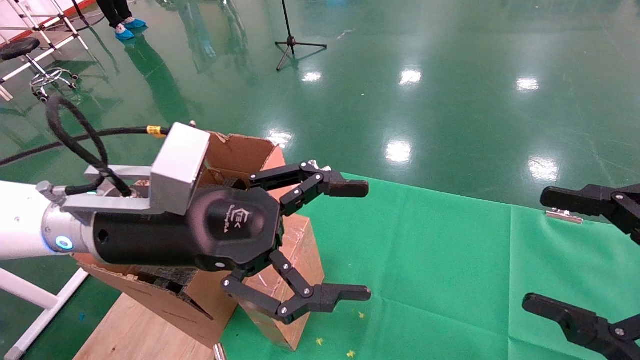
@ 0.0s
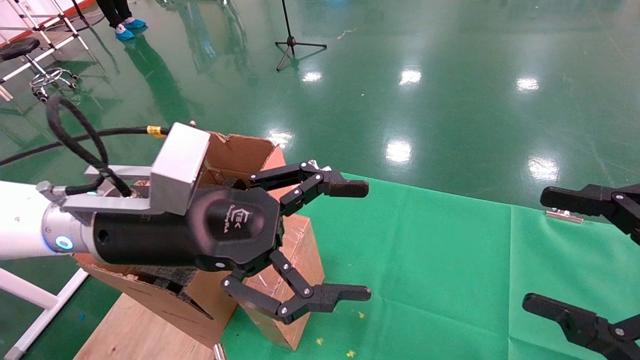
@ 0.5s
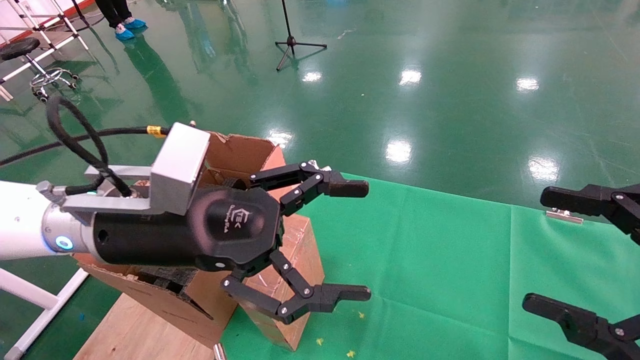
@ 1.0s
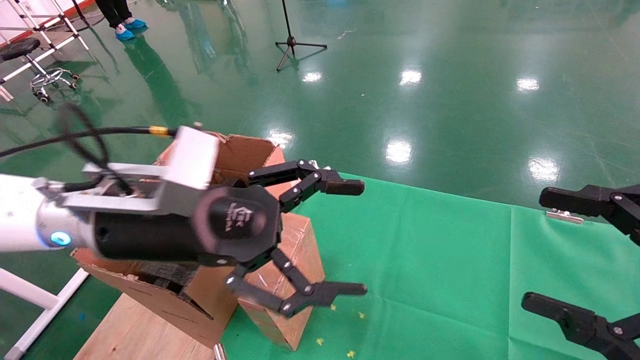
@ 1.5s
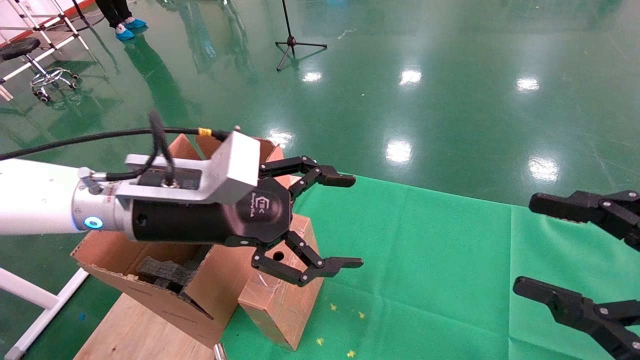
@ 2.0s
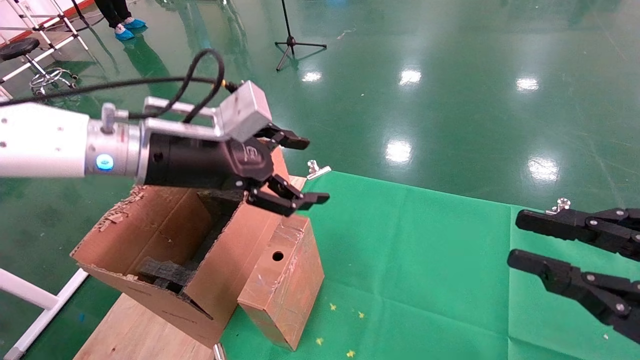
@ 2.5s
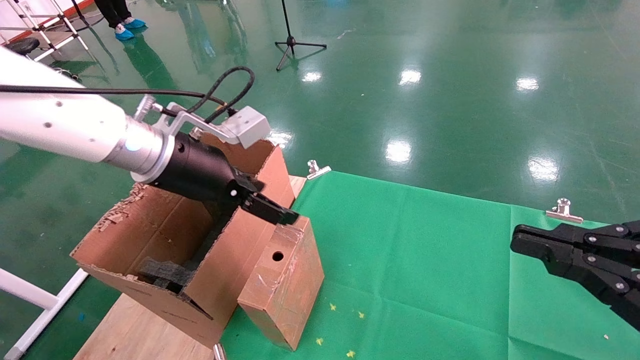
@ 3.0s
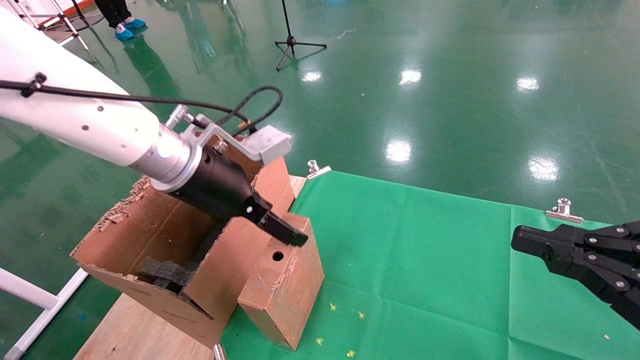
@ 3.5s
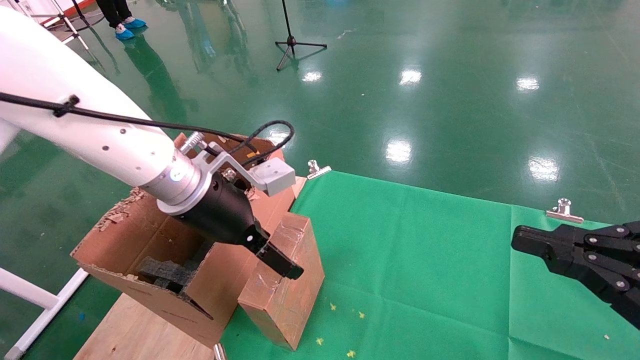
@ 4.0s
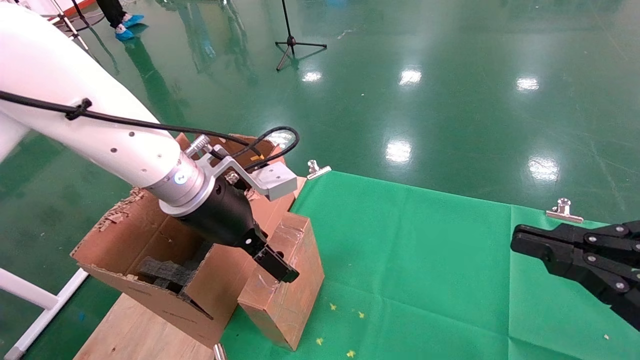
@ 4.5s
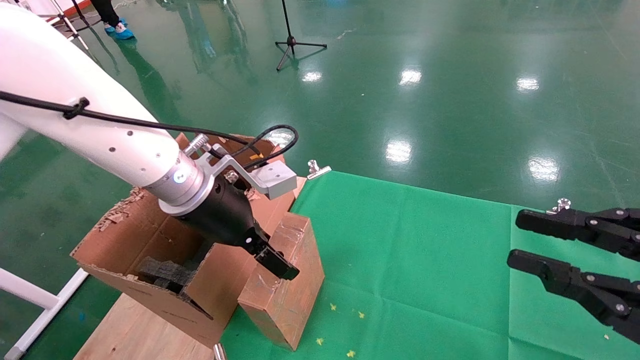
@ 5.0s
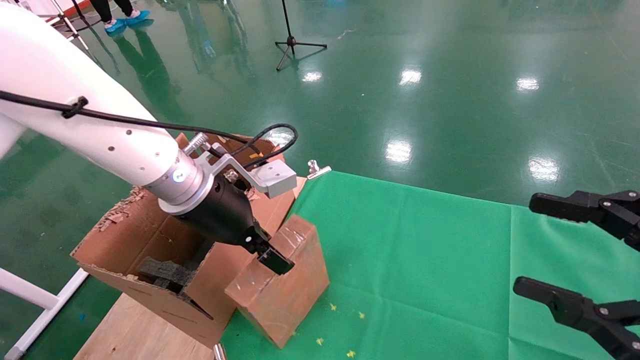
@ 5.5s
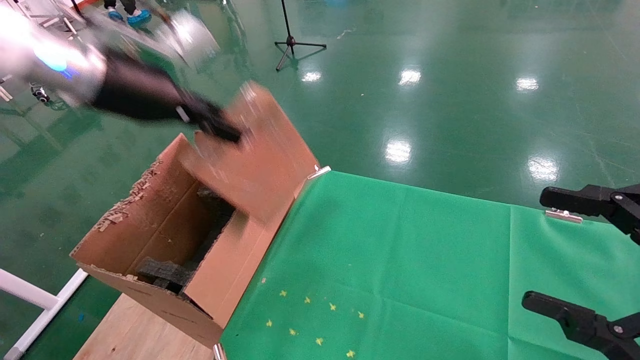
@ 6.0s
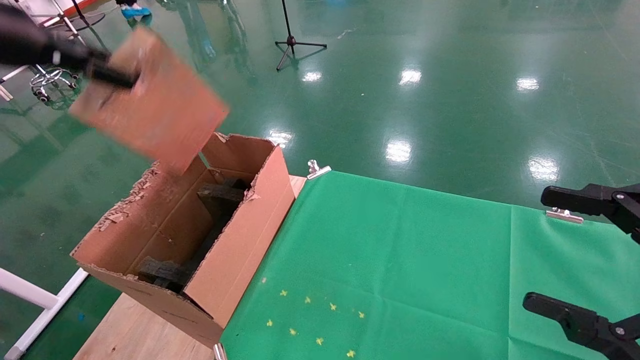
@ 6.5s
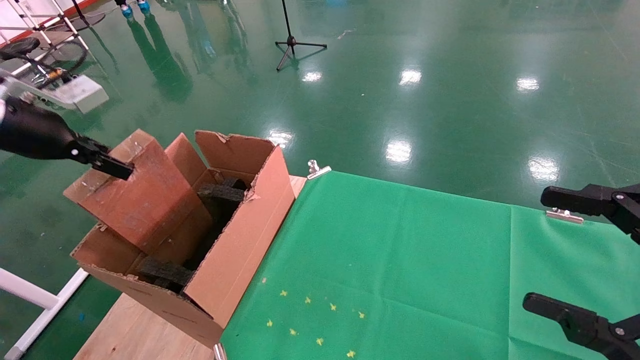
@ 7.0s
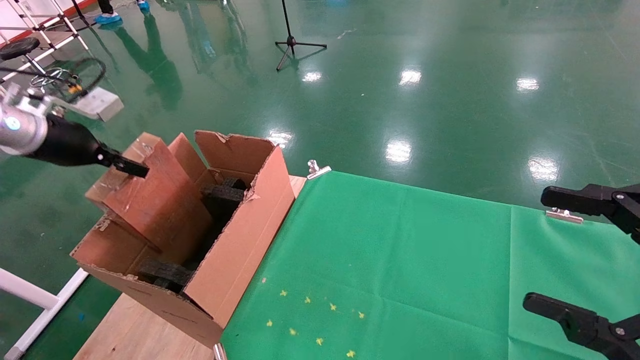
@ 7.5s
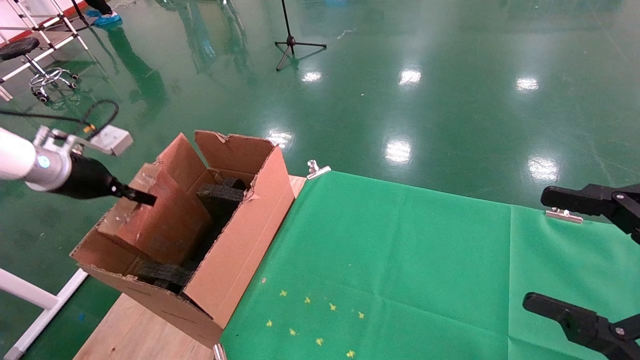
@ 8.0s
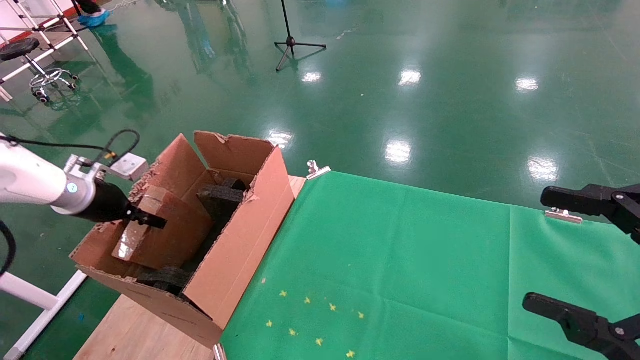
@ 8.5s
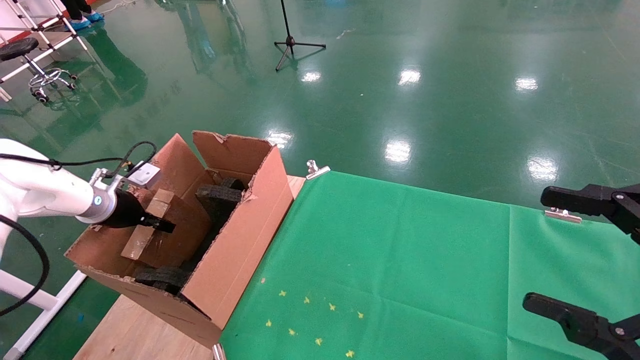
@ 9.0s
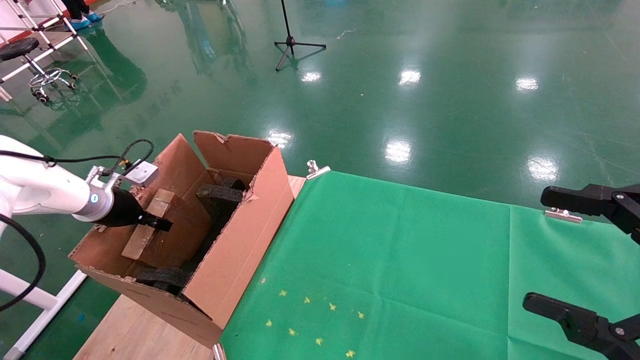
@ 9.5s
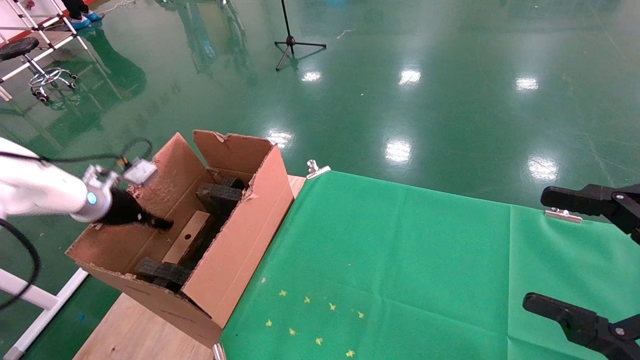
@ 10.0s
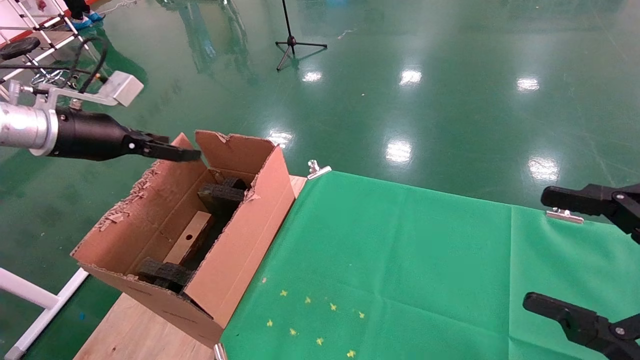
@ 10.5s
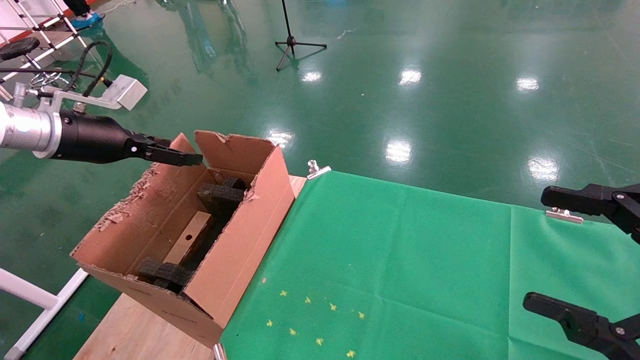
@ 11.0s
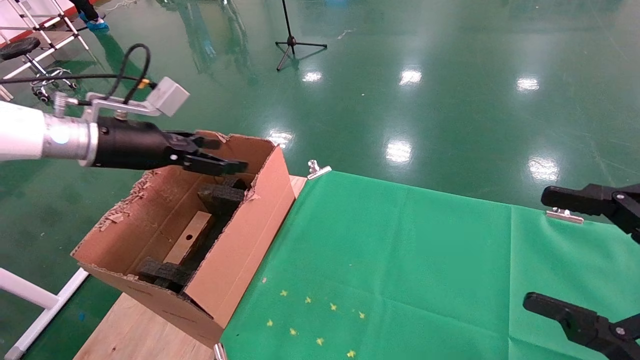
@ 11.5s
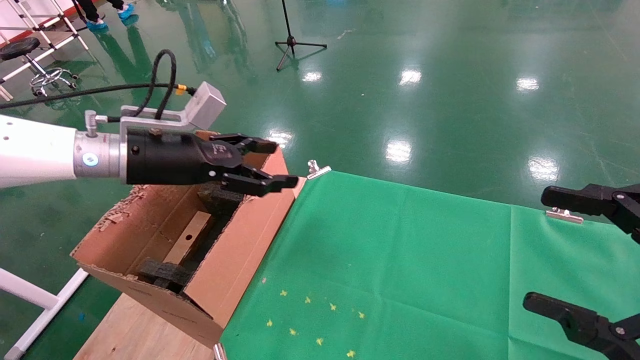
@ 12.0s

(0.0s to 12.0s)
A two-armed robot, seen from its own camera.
Task of the whole recording: using a robotic arm to pick up a cardboard box and palace it the carton.
Step, 2.0s - 5.5s: Pick up the mouse and the power cord paper box.
Step, 6.0s - 10.0s: Place the mouse and the power cord paper box into the container.
2.0s - 4.0s: The right gripper closes, while the left gripper is displaced forward by approximately 5 cm.
4.0s - 6.0s: The left gripper goes roughly 15 cm upward and to the left, and closes; the right gripper opens.
6.0s - 8.0s: The left gripper moves to the left and downward, approximately 25 cm.
8.0s - 10.0s: The left gripper opens up.
10.0s - 12.0s: The left gripper shifts roughly 20 cm to the right and upward, and opens up.

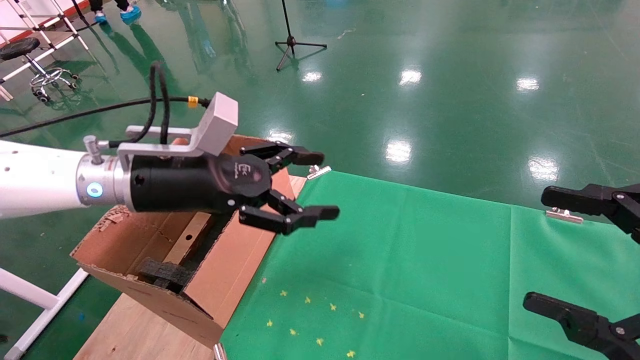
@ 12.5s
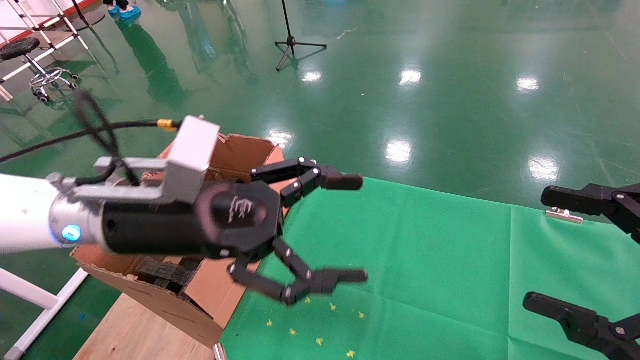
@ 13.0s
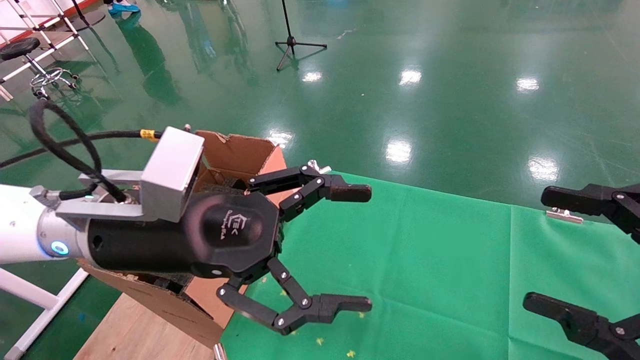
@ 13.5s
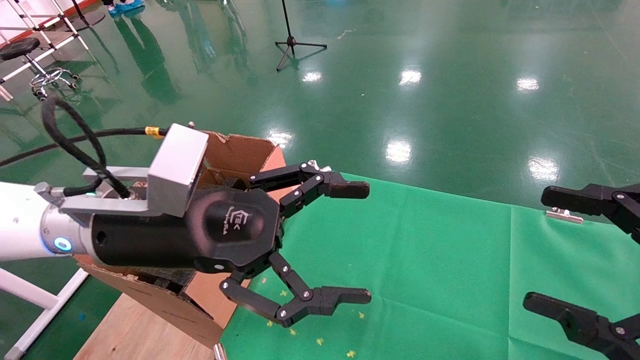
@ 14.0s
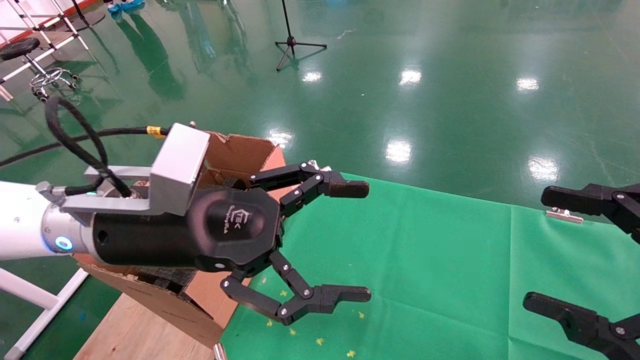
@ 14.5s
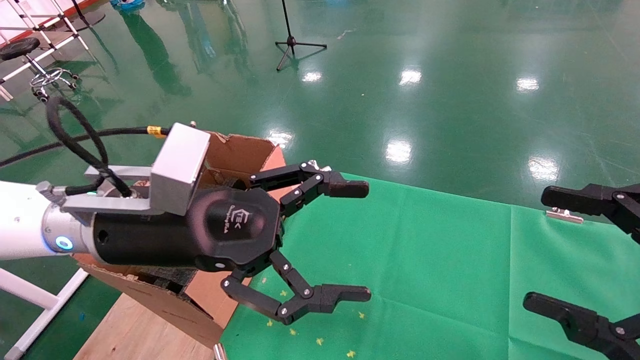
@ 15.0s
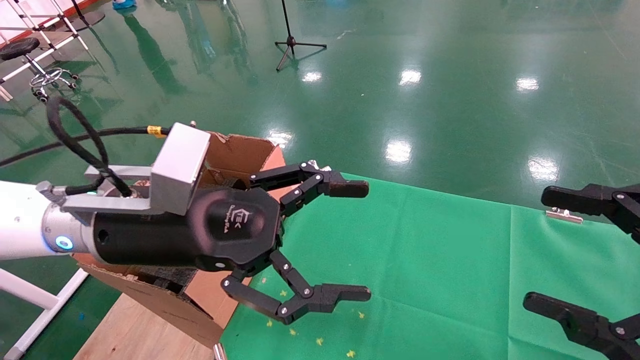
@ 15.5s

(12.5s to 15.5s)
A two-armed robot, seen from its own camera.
Task of the whole recording: using a robotic arm to pick up a cardboard box and palace it the carton.
12.5s - 14.0s: The left gripper heads backward, covering about 5 cm.
14.0s - 15.5s: Both grippers stay about where they are.
